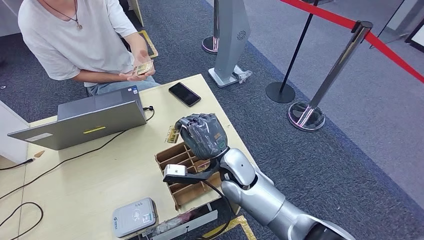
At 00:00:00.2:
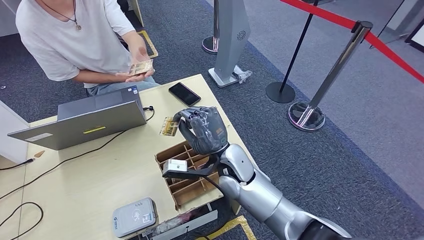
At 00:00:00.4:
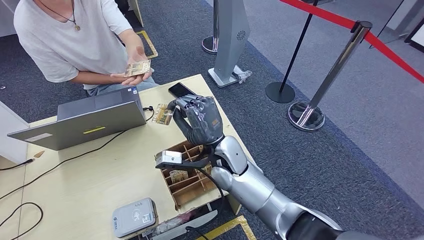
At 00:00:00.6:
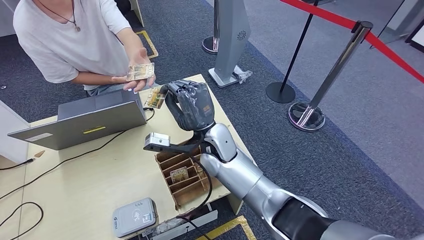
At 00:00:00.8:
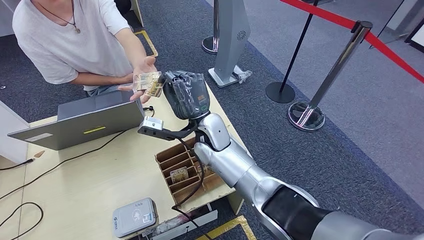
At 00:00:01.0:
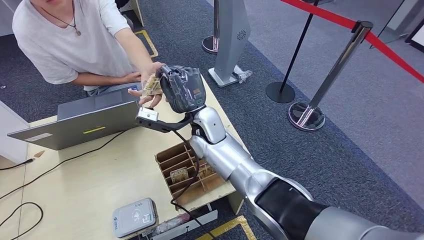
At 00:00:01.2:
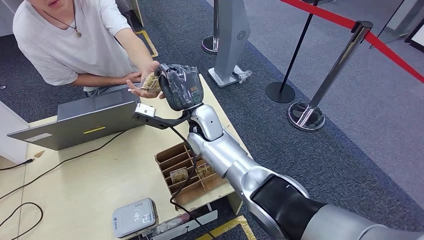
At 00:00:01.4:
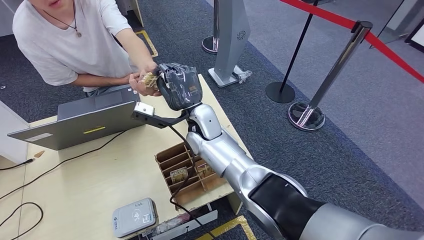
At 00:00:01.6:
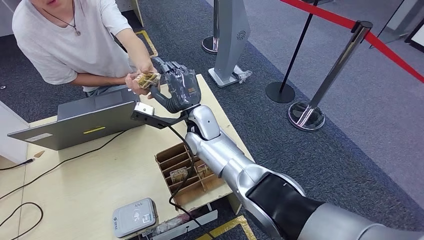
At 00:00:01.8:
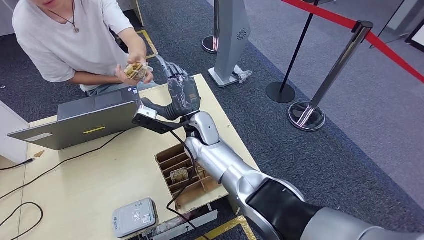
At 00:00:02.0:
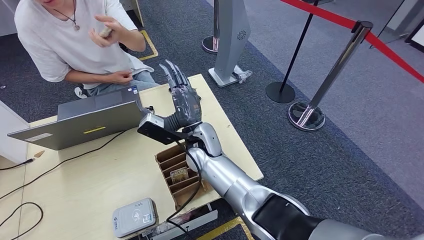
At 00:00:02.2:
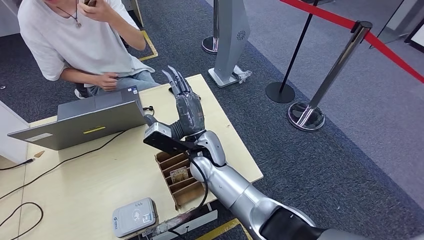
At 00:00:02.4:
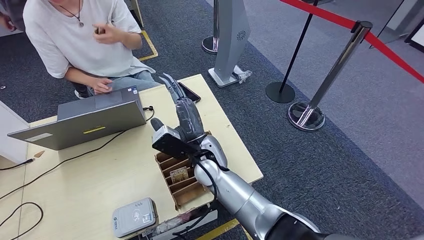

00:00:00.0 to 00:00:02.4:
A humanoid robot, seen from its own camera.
Step, 00:00:00.0 to 00:00:02.4: Hand the room key to the person.
00:00:00.0 to 00:00:01.2: The right hand goes some 15 cm forward and upward.
00:00:01.2 to 00:00:02.4: The right hand heads backward, covering approximately 5 cm.
